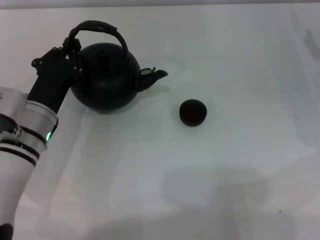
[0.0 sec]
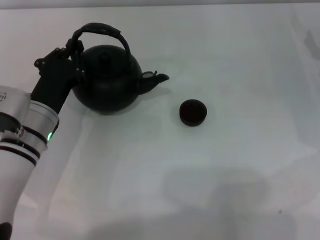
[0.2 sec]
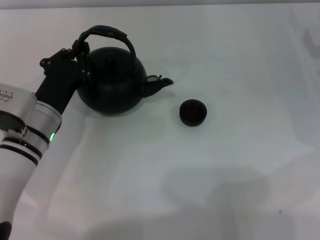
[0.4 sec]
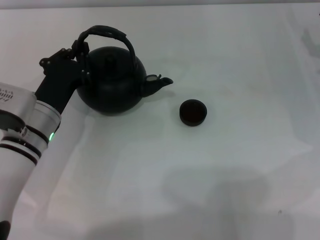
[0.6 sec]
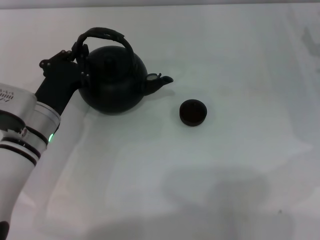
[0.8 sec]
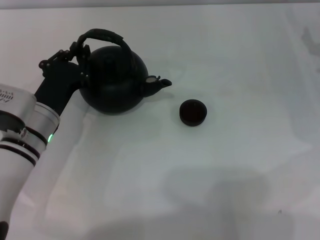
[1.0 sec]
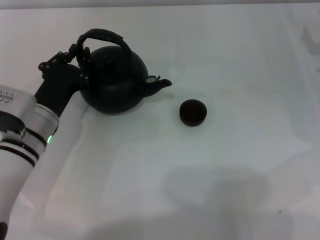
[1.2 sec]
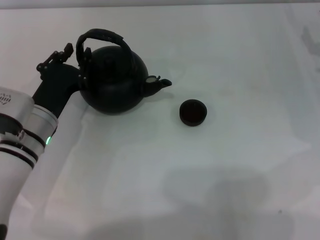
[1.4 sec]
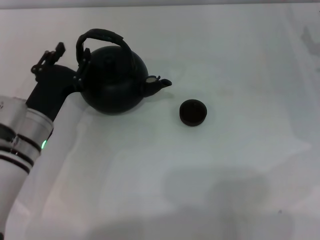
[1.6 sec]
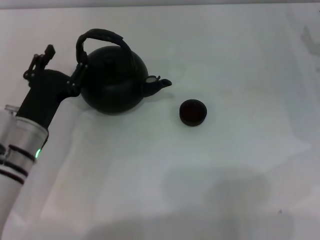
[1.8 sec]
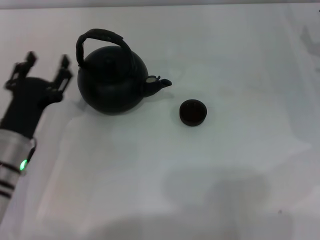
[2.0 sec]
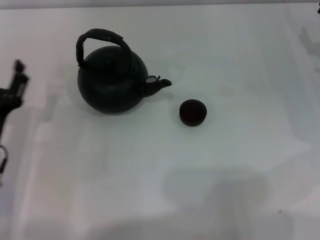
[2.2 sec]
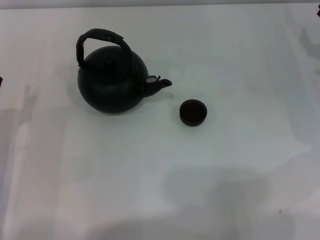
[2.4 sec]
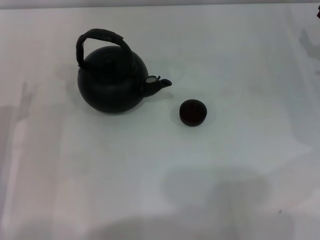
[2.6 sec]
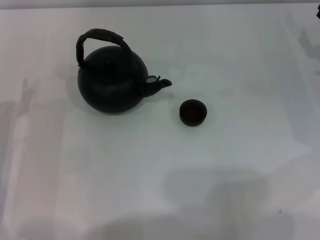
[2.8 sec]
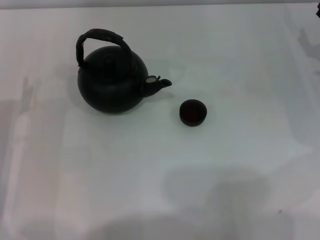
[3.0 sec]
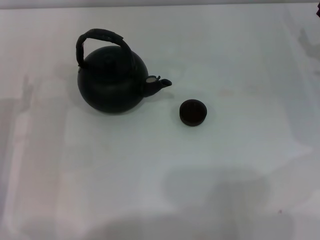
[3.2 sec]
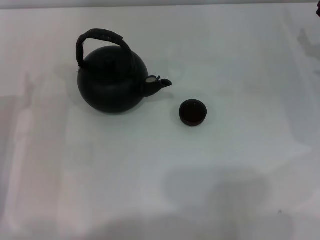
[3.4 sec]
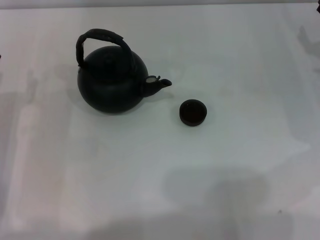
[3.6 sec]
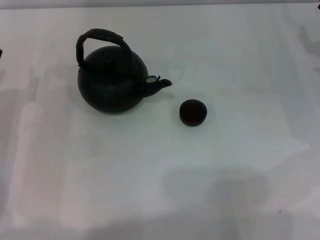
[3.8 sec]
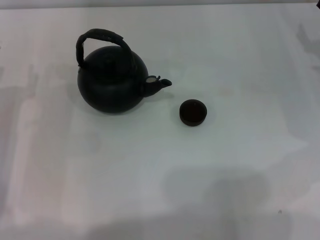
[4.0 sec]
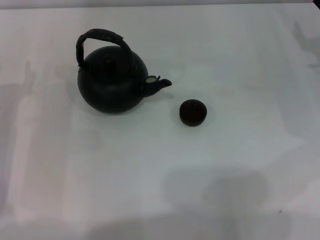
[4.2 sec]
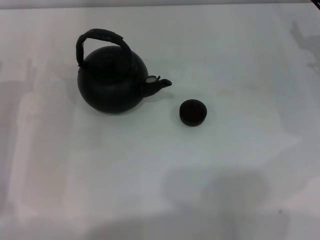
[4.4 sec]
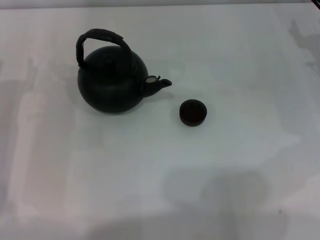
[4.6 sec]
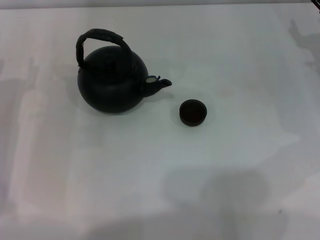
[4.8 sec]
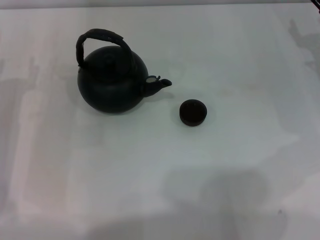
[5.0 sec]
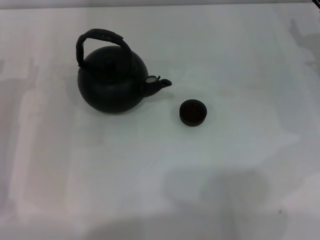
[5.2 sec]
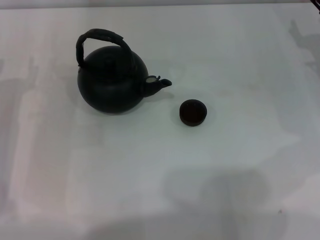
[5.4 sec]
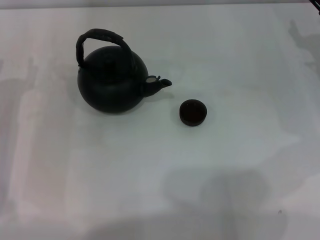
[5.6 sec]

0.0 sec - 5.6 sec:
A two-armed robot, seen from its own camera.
Task of the whole recording: Grasp the handle of the teapot with one hand and pour tea into the teacup.
Step, 0.0 sec - 2.0 sec: Put down the teapot with the left gripper.
0.0 sec - 1.4 sec: The grippers move only a little.
1.4 sec - 2.8 sec: The left gripper moves to the left and backward, some 10 cm, and opens its fingers.
4.2 sec - 5.6 sec: Both grippers stay put.
